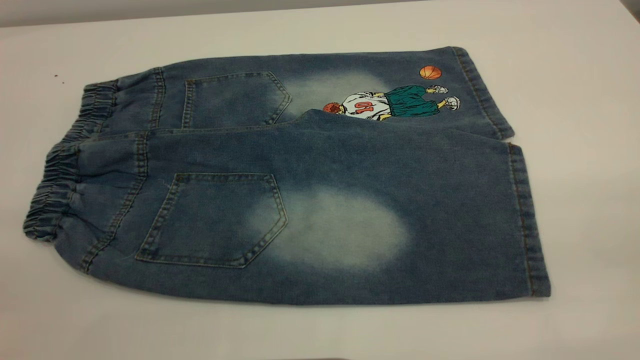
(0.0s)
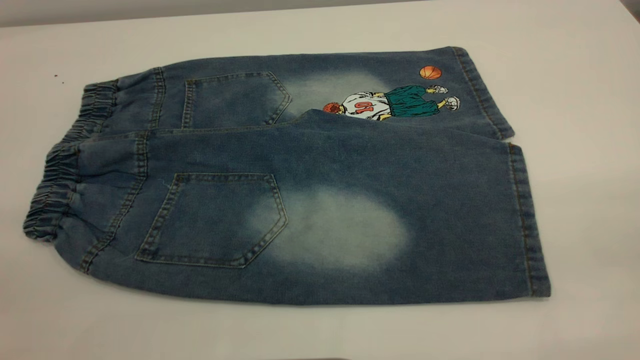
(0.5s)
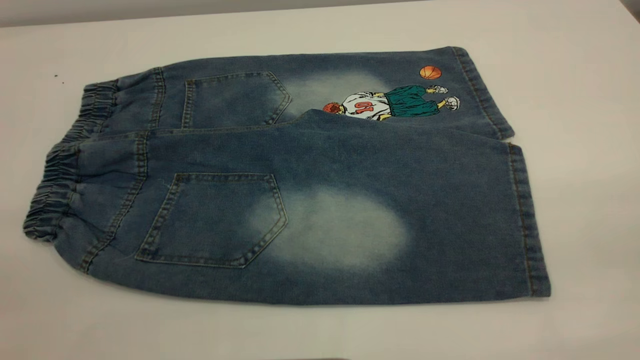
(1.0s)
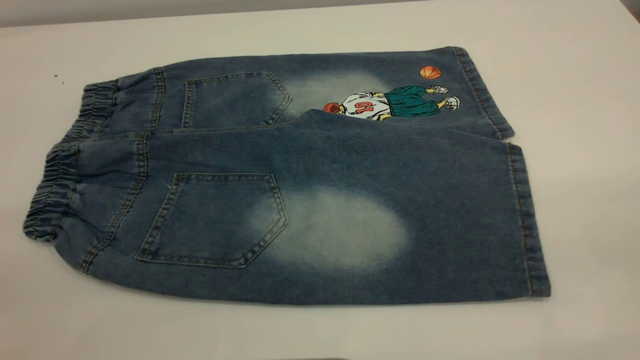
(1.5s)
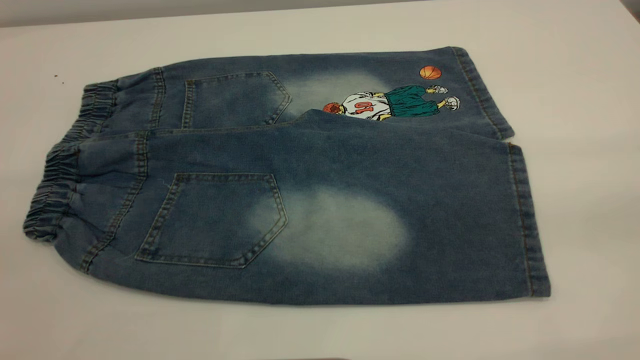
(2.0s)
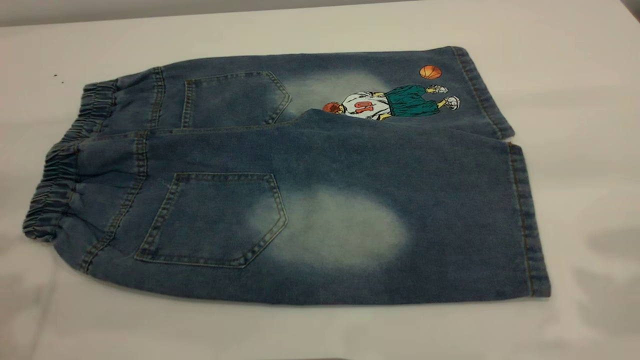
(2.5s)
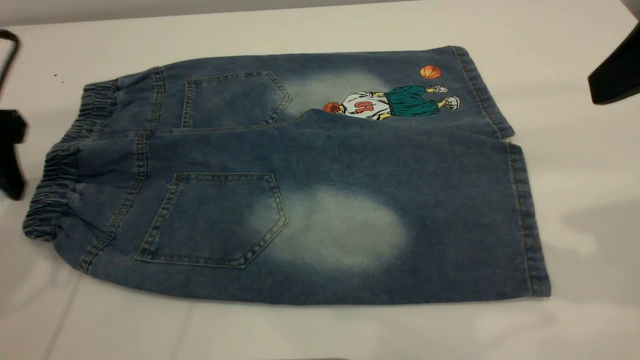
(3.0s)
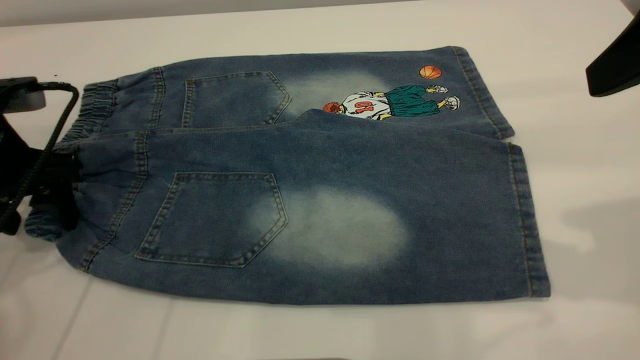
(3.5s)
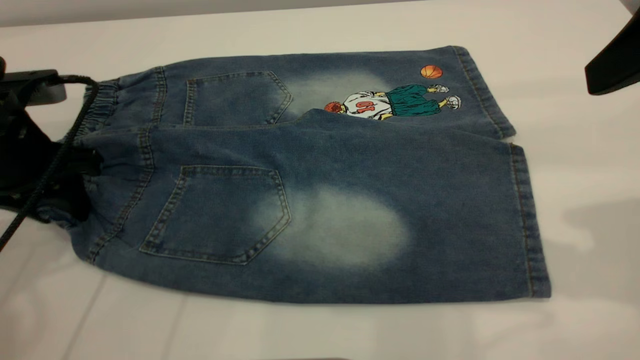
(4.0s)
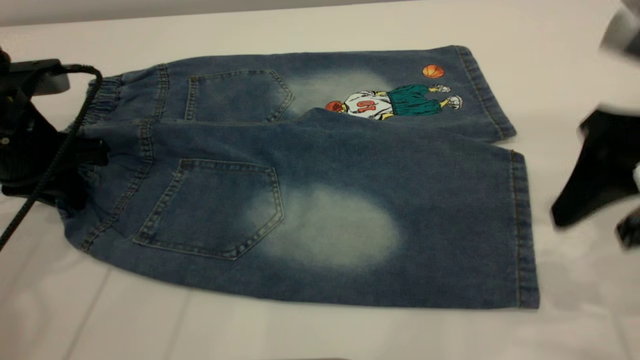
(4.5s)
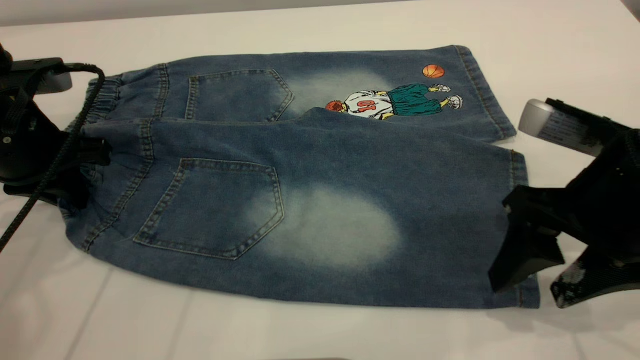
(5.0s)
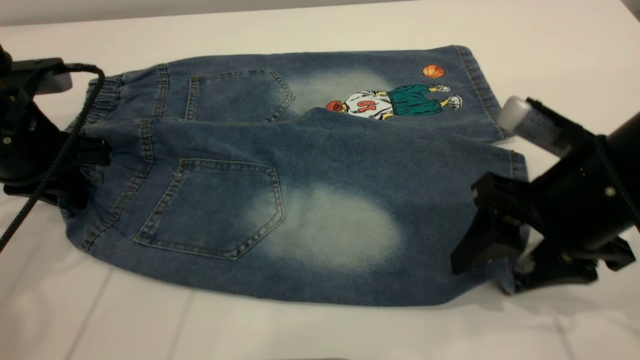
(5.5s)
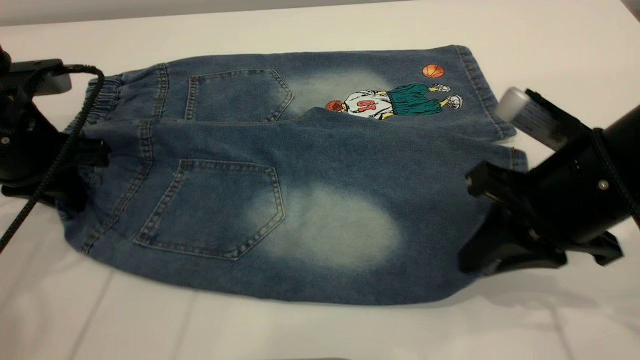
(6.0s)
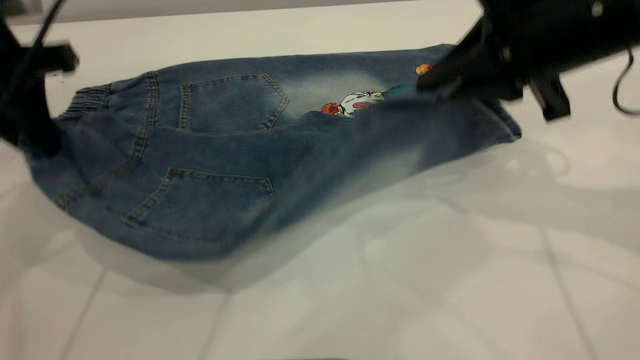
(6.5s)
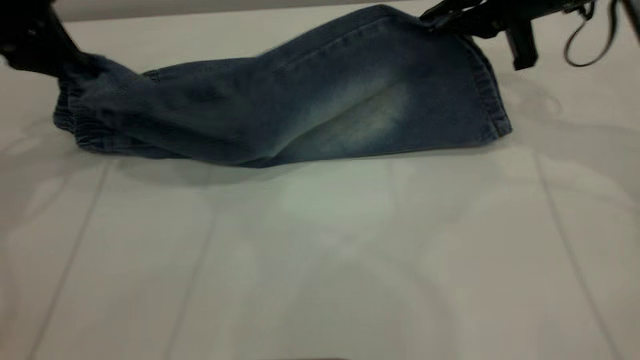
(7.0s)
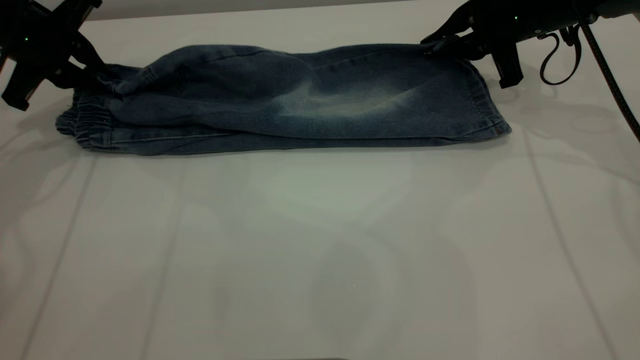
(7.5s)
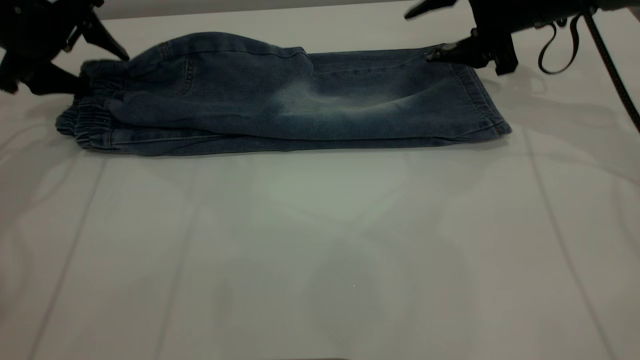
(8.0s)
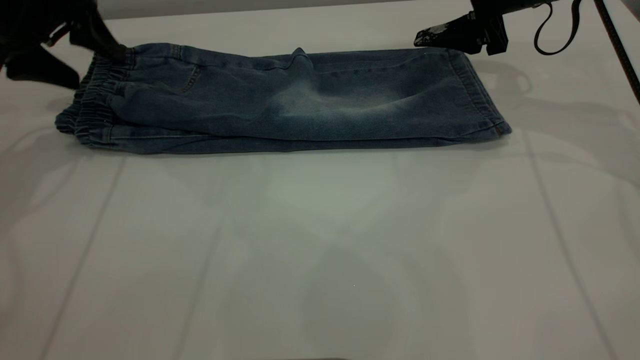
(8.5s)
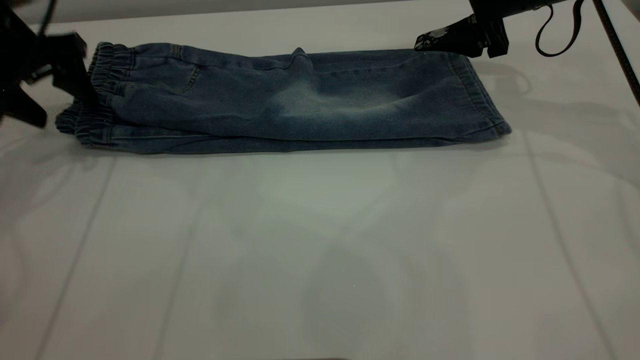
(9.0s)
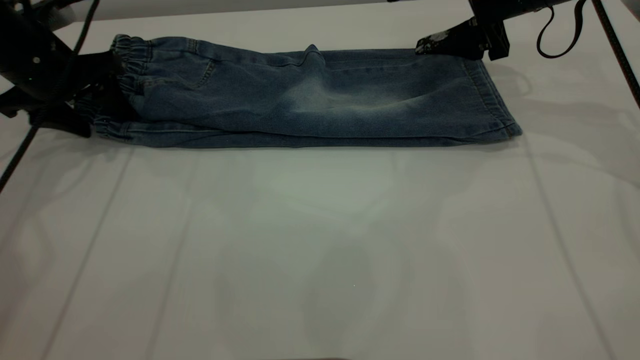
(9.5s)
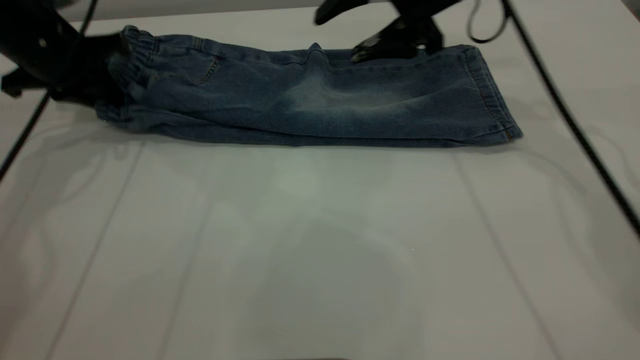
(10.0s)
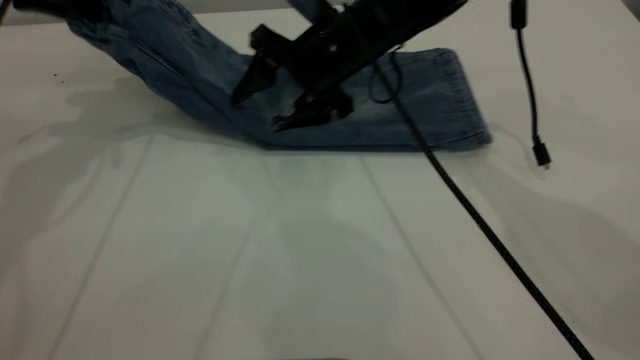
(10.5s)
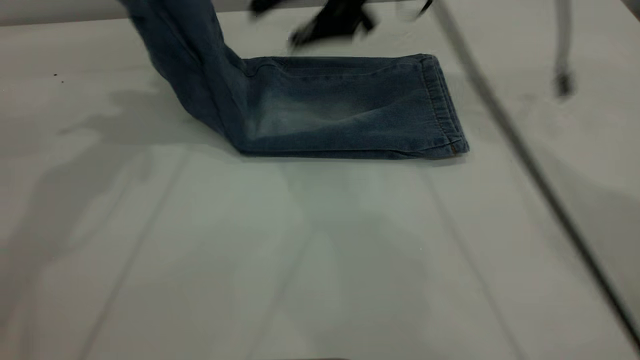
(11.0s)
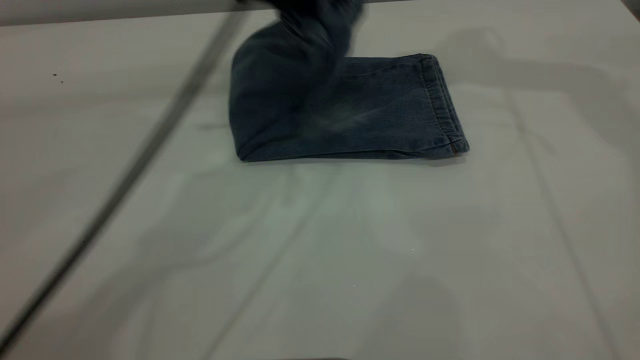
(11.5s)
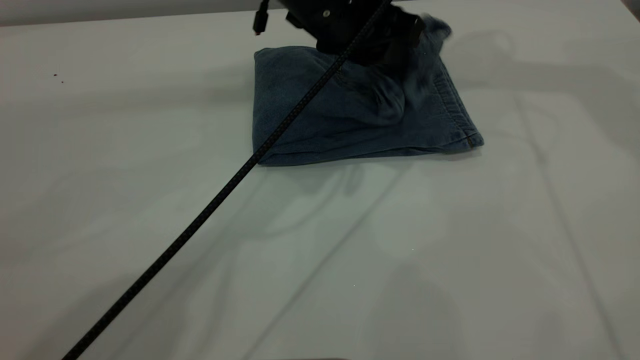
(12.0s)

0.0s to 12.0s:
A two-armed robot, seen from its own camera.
Step, 0.0s to 8.0s: Fold the bottom of the pants upward.
2.0s to 4.0s: The right gripper shifts some 15 cm forward and downward; the left gripper travels forward and downward by approximately 35 cm, and closes.
4.0s to 6.0s: The right gripper goes roughly 15 cm downward, and closes its fingers. Meanwhile the left gripper closes its fingers.
6.0s to 8.0s: The left gripper is displaced forward by roughly 10 cm, and opens its fingers. The right gripper is displaced forward by some 20 cm, and opens up.
8.0s to 10.0s: The right gripper shifts about 10 cm to the left, while the left gripper closes.
10.0s to 12.0s: The right gripper is displaced upward and to the right by some 20 cm. The left gripper shifts about 30 cm to the right, and opens.

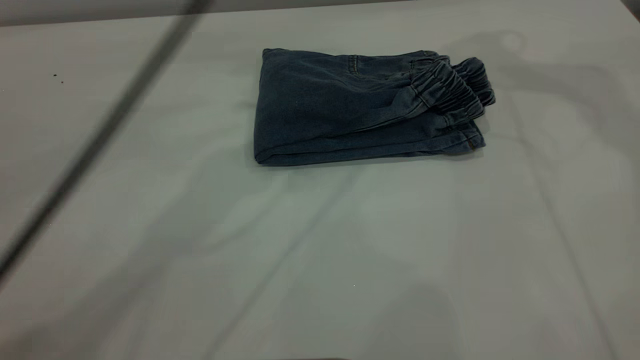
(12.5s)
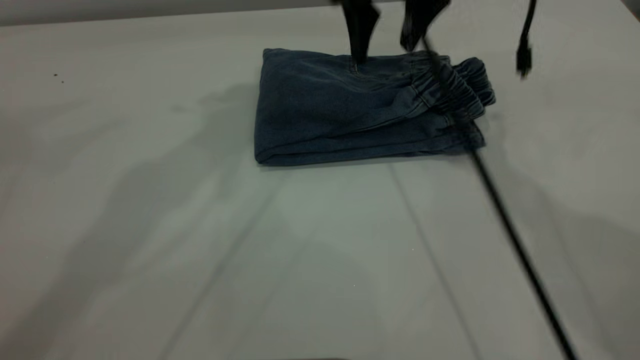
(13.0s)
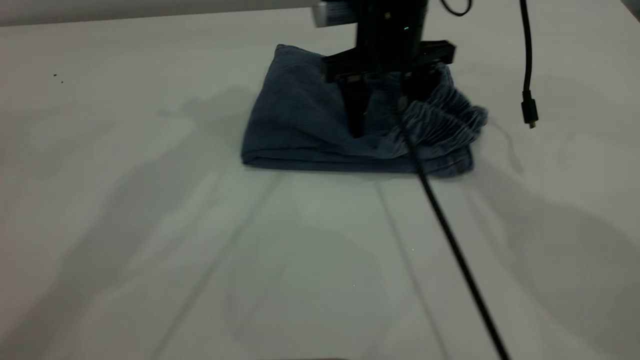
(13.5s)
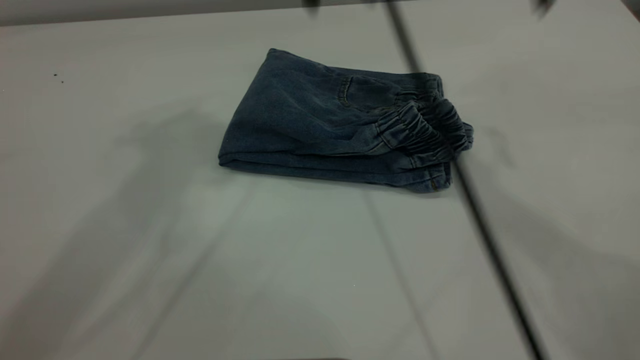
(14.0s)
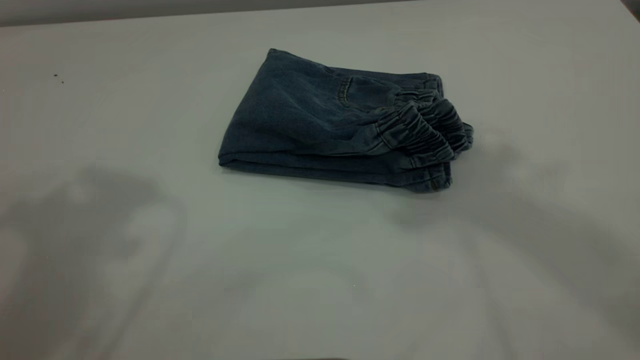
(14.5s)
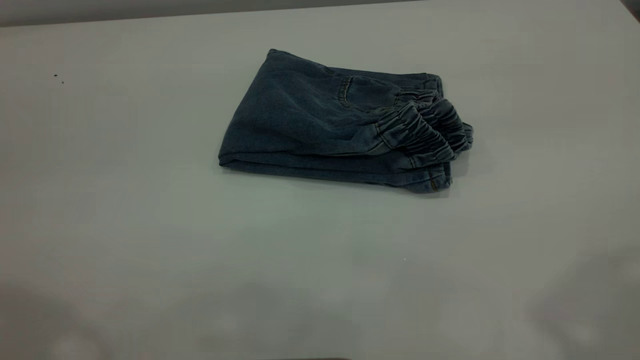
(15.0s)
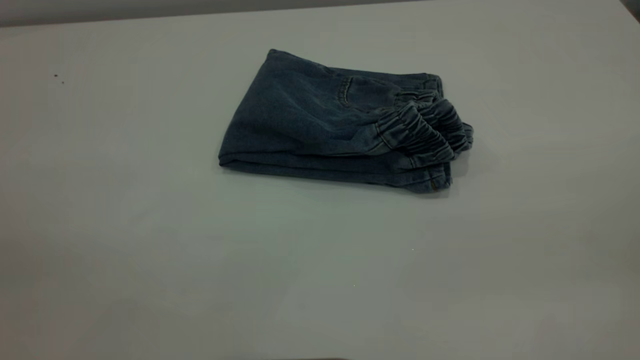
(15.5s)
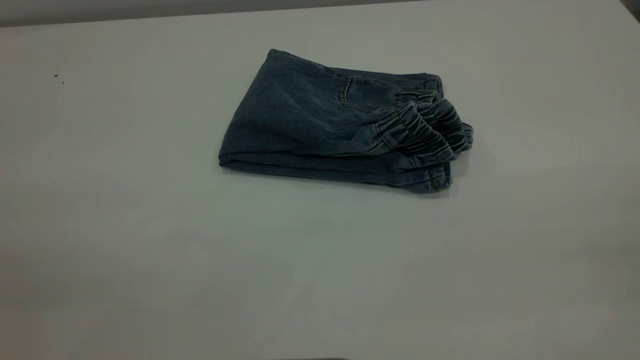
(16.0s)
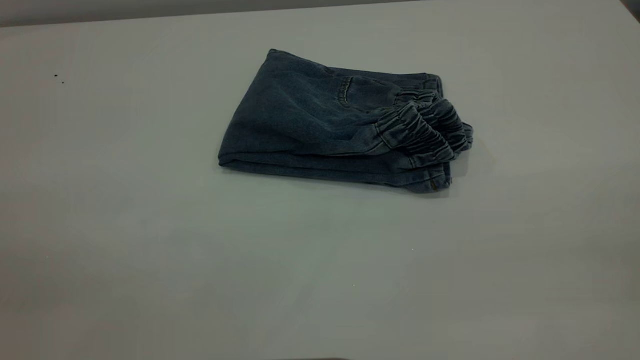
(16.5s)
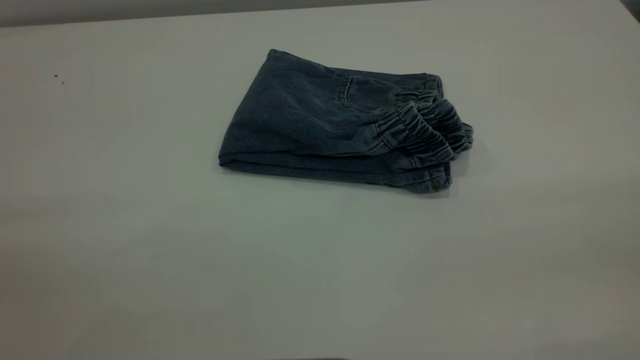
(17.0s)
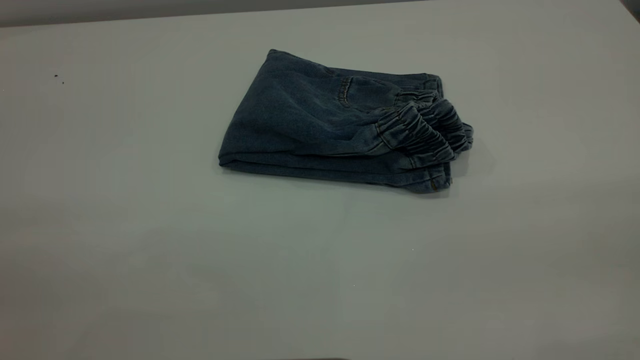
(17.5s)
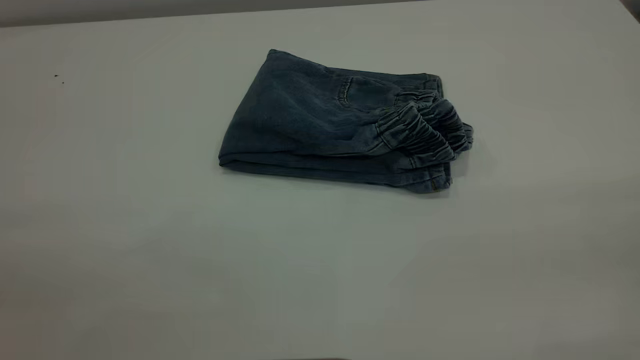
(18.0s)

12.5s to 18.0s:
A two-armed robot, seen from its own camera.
12.5s to 14.5s: The left gripper is displaced to the left, backward and upward by some 25 cm; the right gripper is displaced backward and upward by approximately 30 cm.
